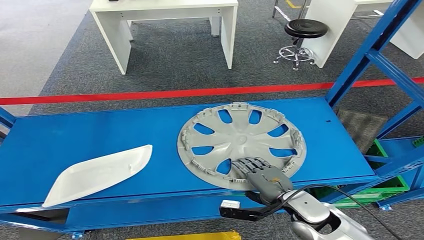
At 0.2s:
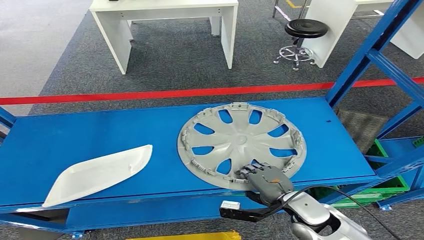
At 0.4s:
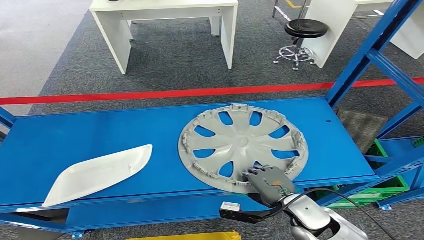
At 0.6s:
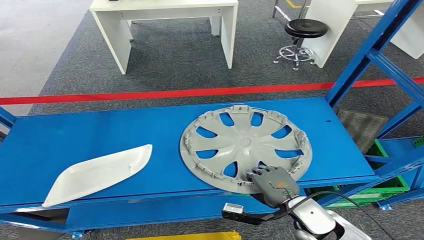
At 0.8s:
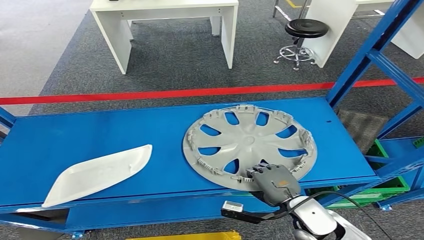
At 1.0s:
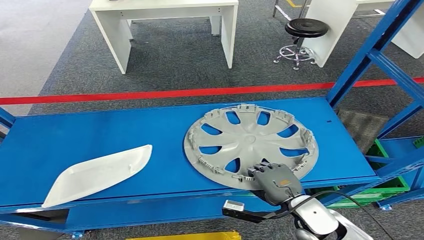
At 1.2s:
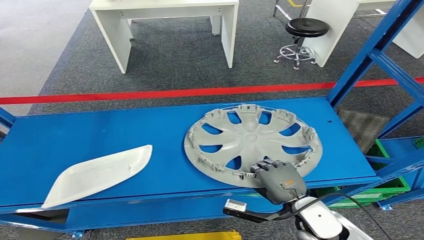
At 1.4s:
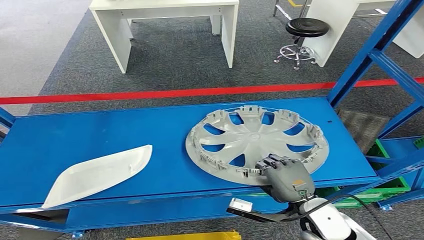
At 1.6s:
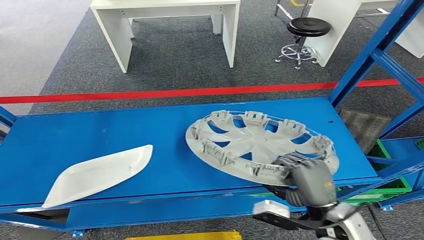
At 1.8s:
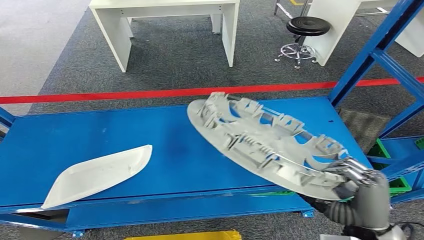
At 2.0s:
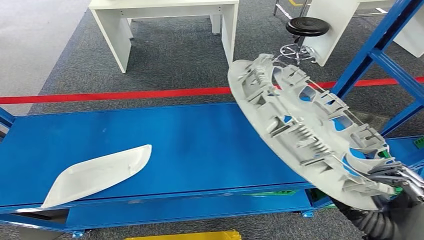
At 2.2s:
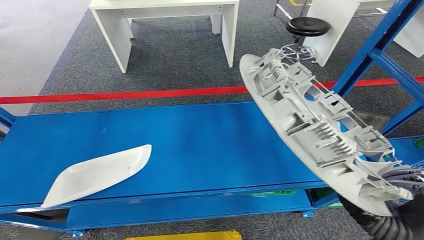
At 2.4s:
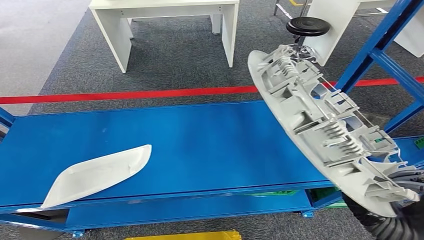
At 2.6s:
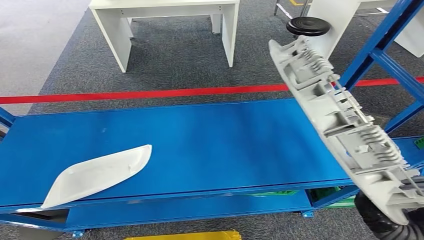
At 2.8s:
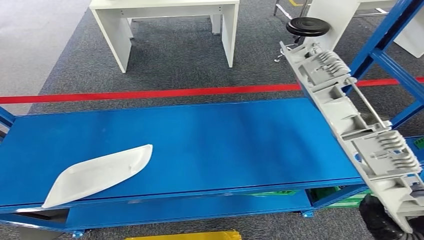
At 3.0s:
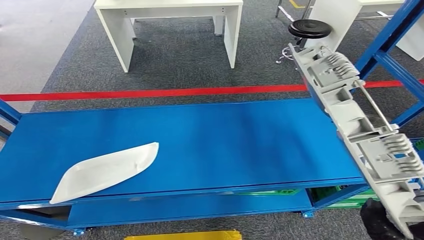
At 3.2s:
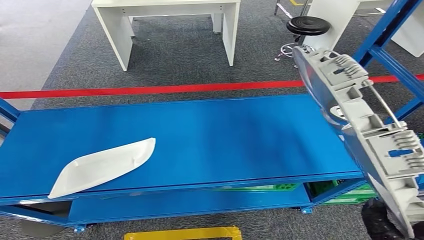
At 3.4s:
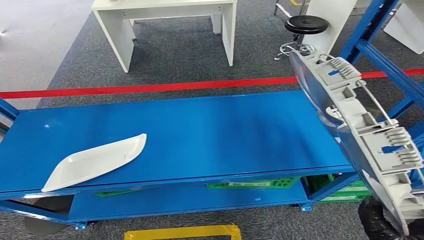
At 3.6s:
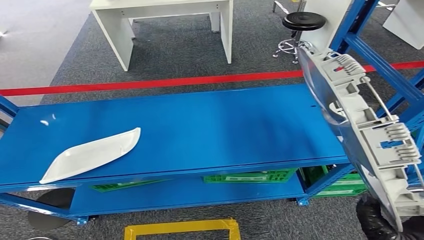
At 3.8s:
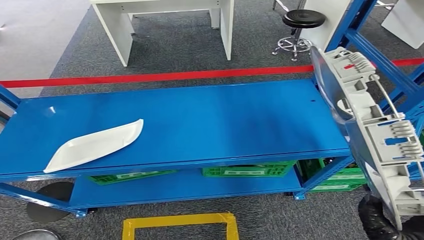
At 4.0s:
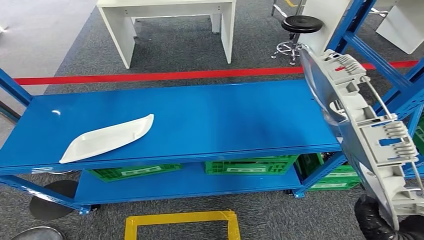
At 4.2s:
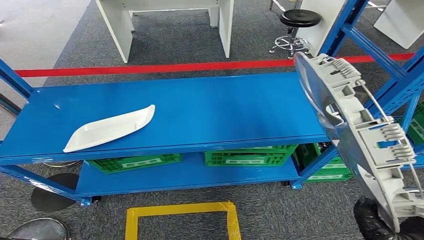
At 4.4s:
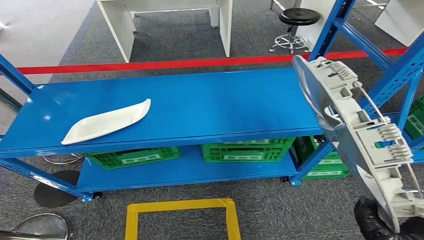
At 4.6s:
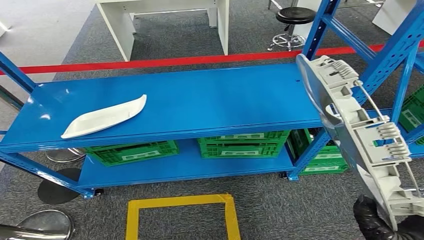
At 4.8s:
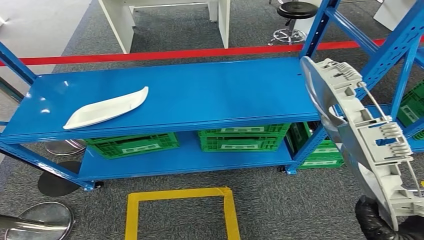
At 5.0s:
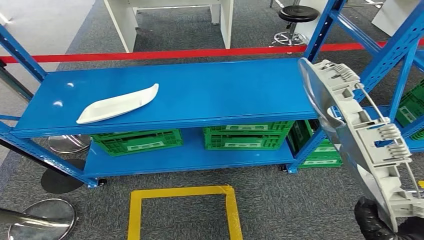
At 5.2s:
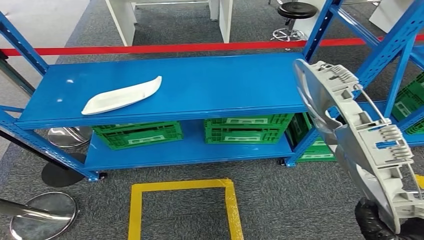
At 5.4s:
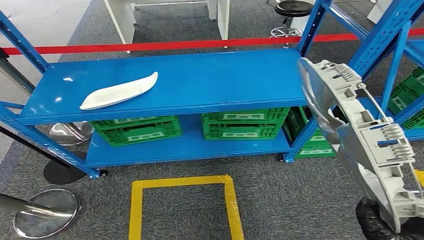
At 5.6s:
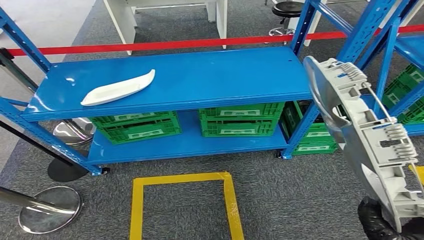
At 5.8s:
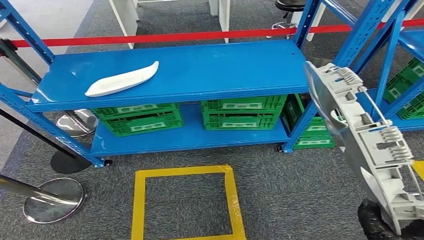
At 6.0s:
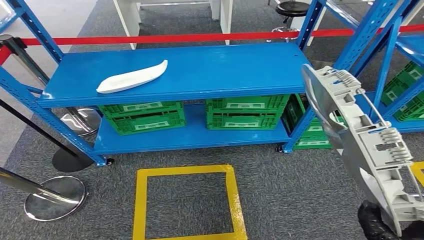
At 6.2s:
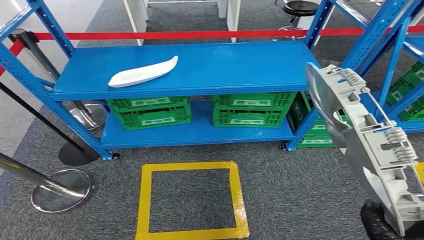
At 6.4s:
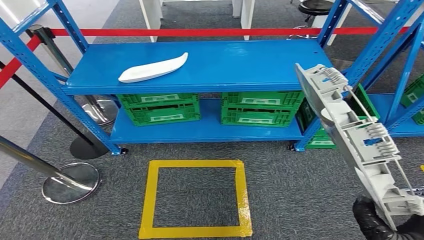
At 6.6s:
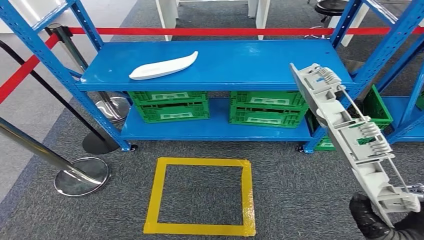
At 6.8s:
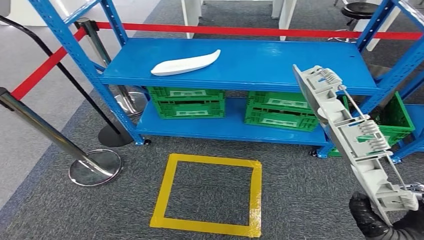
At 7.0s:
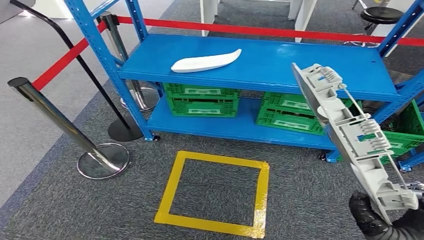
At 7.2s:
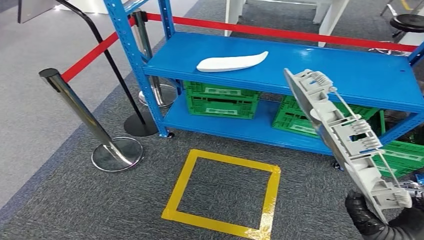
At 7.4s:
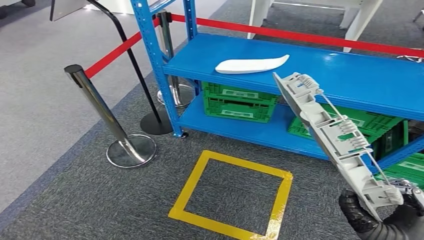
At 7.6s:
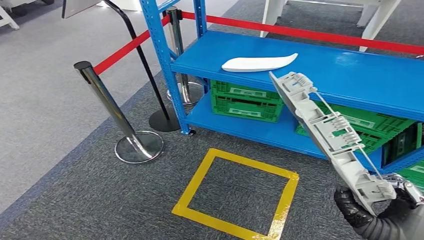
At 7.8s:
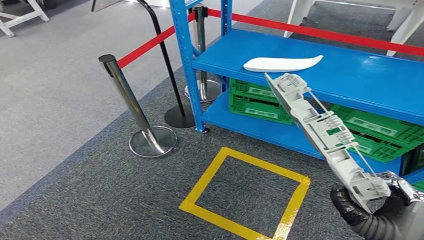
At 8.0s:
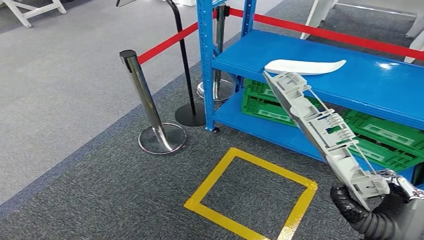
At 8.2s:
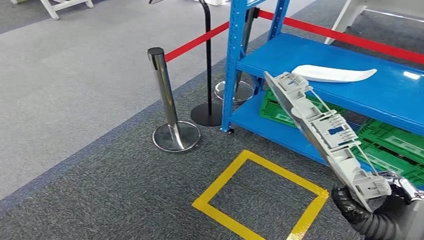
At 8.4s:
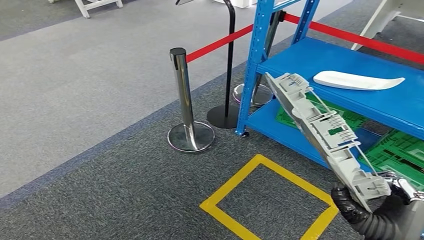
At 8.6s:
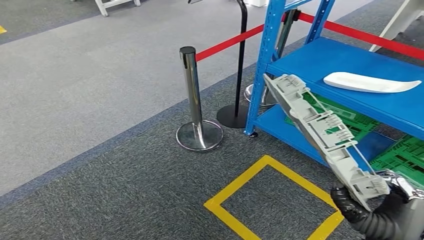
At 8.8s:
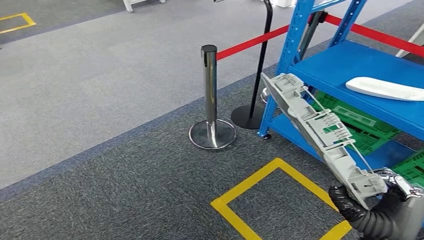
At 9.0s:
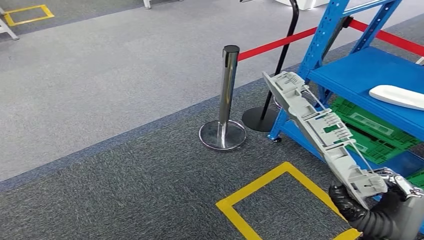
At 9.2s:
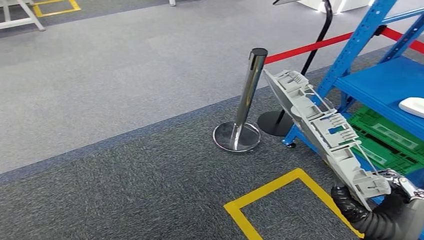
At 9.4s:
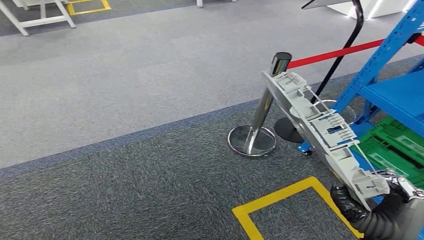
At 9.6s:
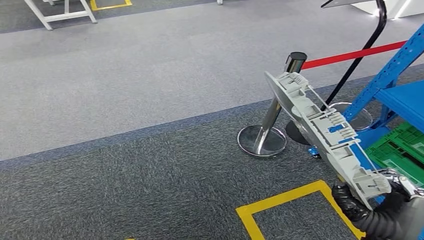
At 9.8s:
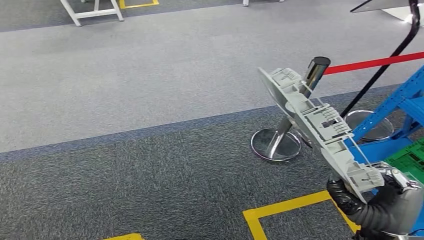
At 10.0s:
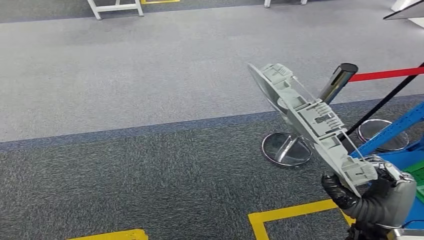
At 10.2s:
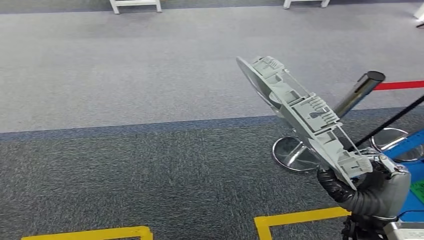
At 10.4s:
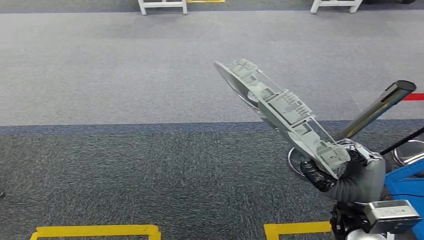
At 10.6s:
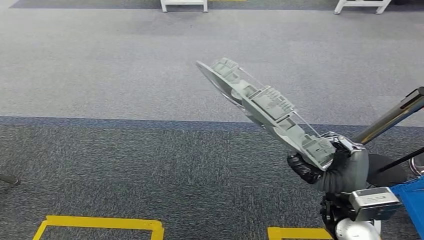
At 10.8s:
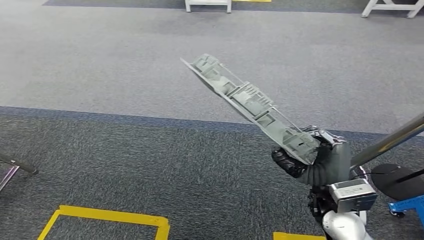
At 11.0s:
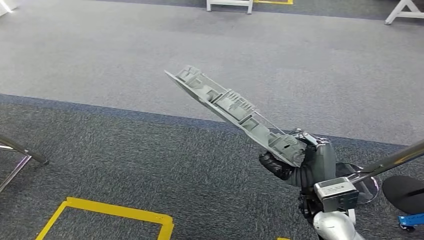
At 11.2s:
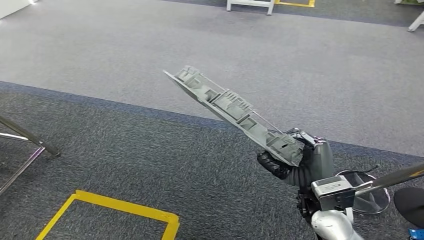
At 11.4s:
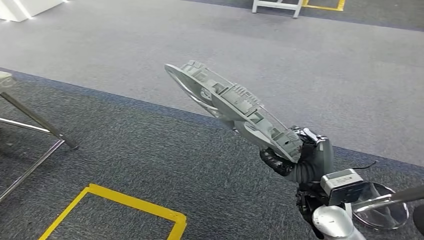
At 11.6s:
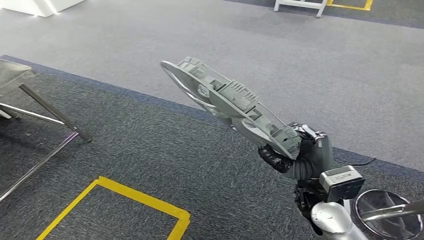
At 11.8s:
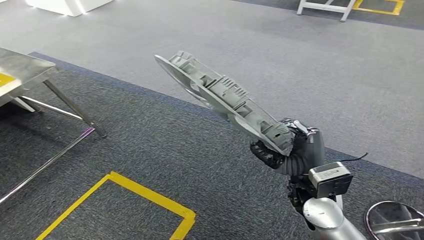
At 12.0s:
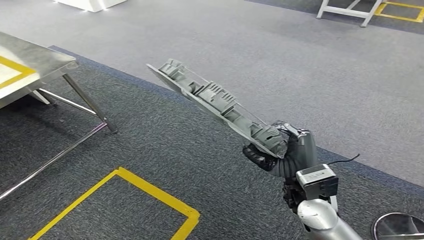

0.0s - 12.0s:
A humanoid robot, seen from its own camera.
Step, 0.0s - 2.2s: Pick up the small parts from the shelf.

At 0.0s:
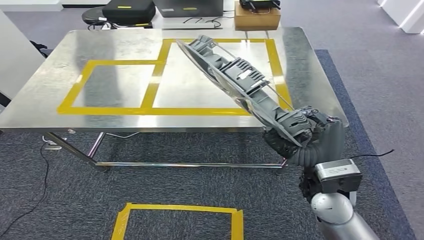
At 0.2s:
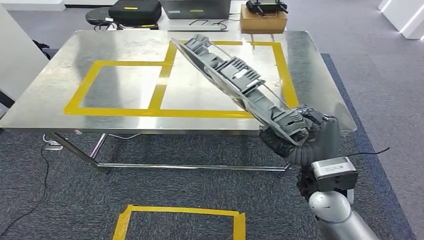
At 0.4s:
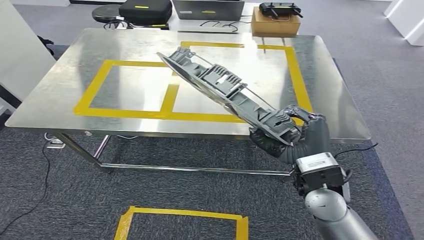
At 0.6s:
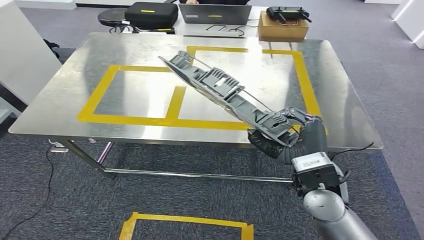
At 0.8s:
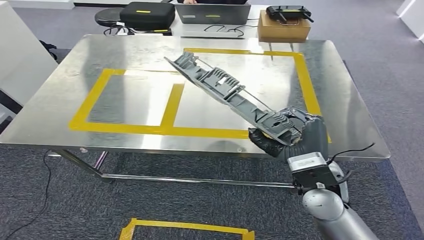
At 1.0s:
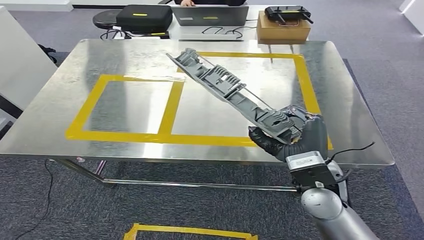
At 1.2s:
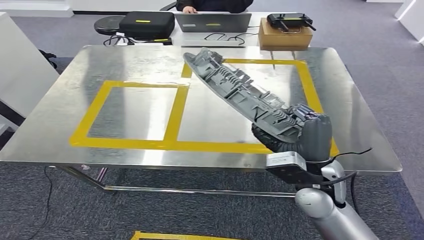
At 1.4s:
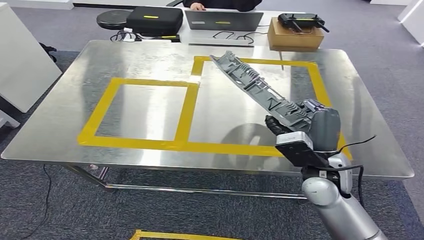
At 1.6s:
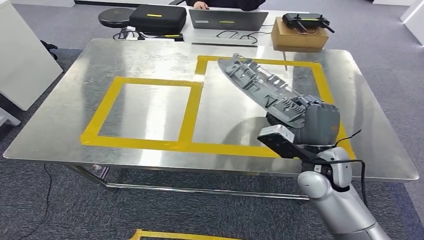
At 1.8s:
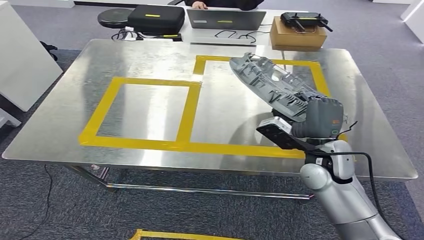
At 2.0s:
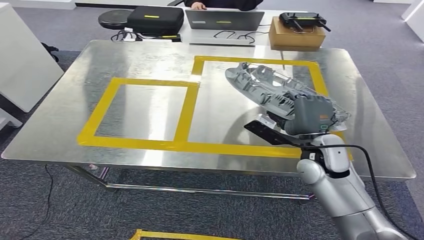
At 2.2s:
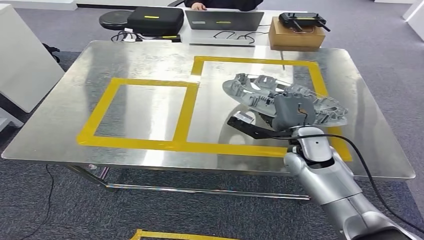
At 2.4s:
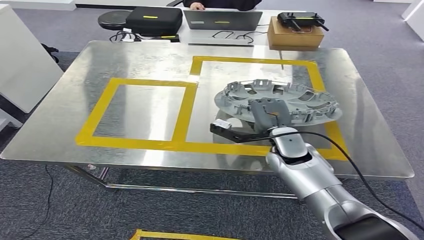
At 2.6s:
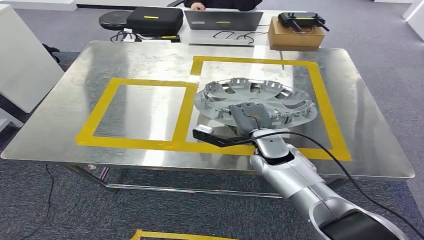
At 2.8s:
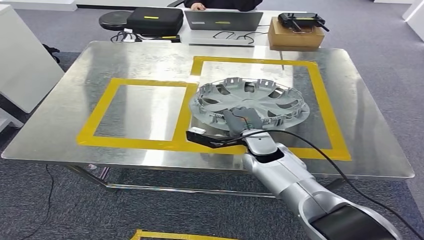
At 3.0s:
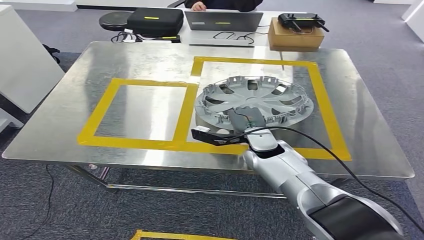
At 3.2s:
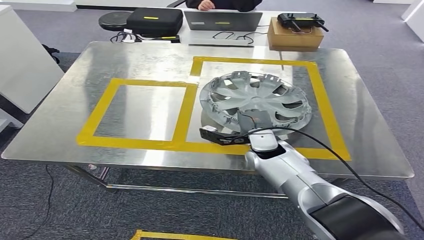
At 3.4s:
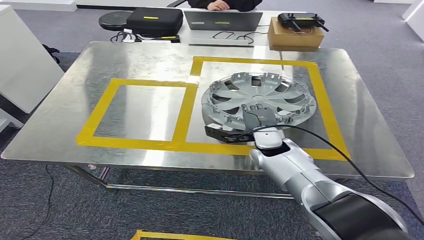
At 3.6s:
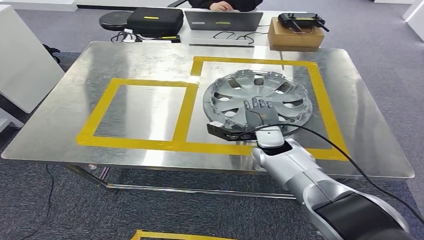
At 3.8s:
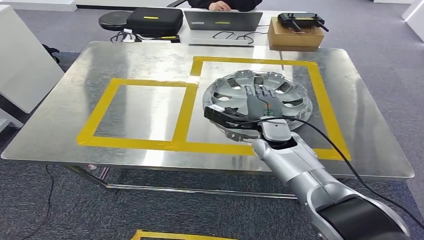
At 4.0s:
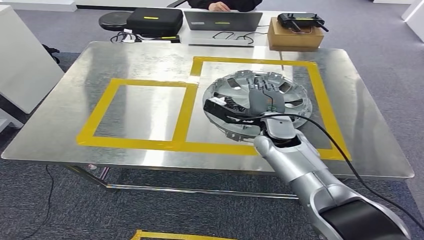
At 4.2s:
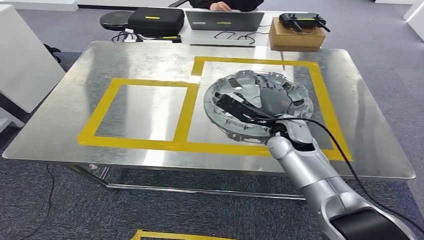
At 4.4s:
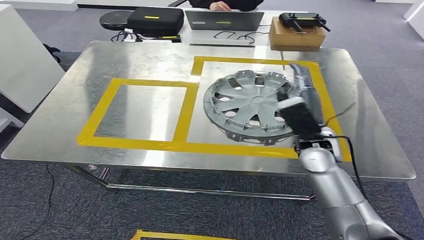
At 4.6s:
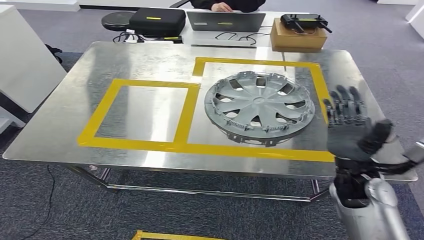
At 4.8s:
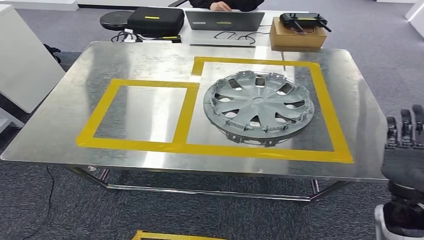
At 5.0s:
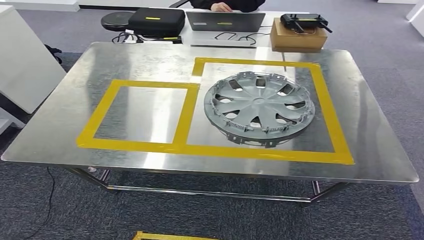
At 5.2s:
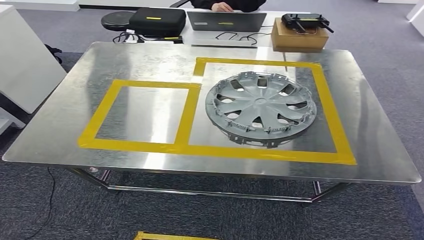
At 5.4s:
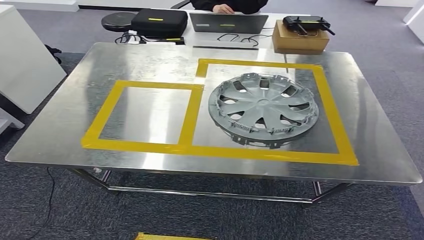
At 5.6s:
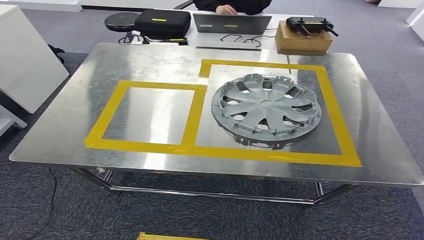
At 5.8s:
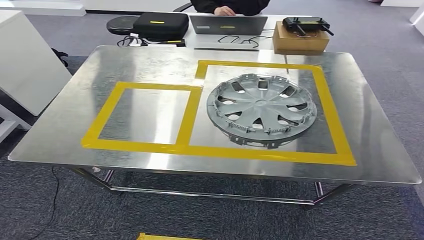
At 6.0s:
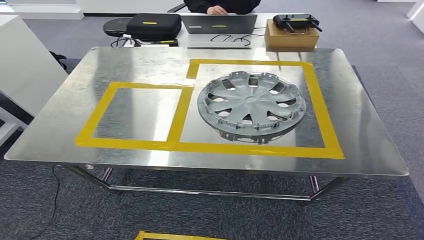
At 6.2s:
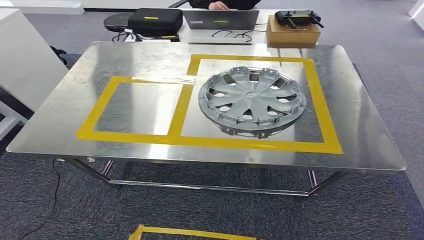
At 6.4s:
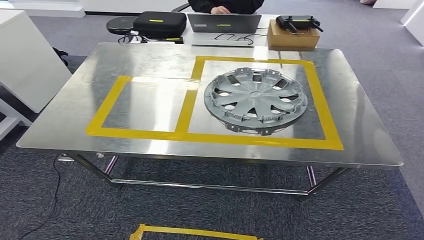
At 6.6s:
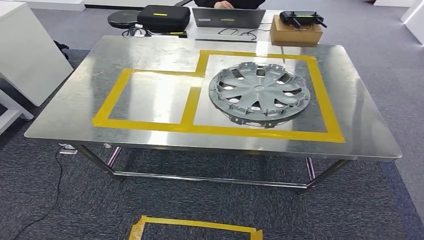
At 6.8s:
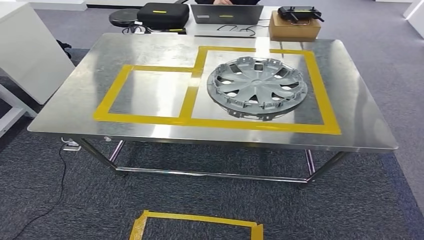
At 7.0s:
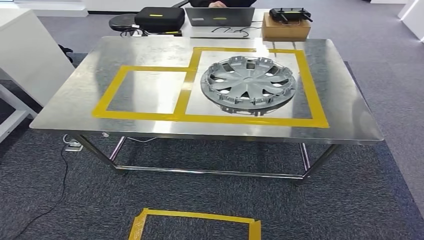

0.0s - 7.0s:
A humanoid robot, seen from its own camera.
Step, 2.0s - 6.6s: Insert the small parts into the corresponding holes on the workbench.
2.8s - 4.2s: The right hand changes place by about 5 cm; the left hand moves to the right, approximately 5 cm.
